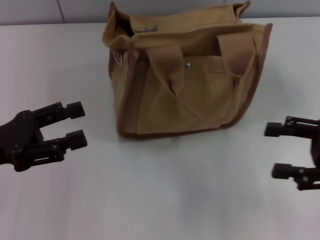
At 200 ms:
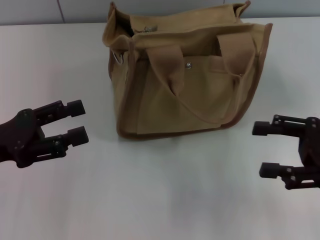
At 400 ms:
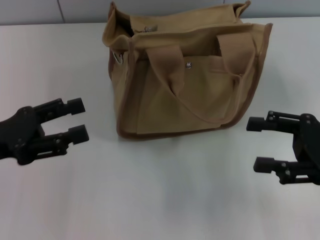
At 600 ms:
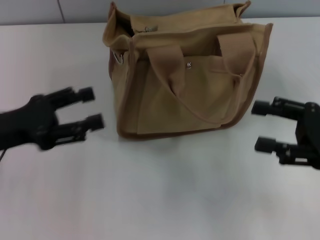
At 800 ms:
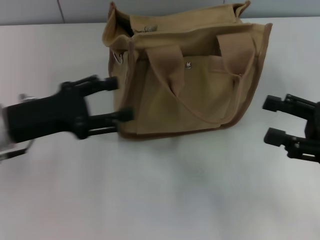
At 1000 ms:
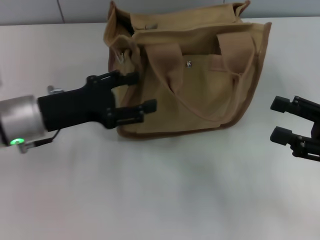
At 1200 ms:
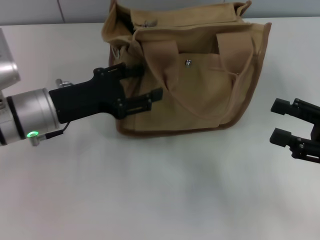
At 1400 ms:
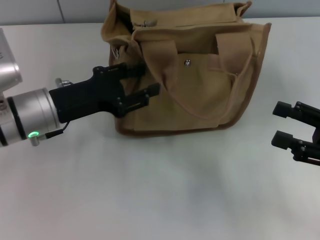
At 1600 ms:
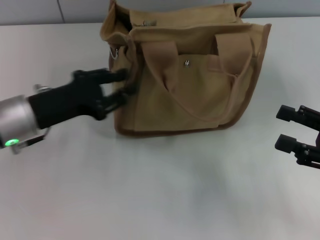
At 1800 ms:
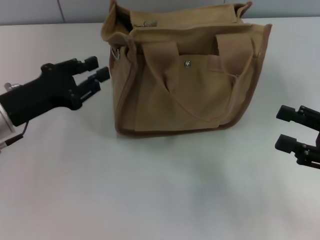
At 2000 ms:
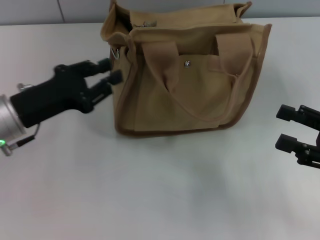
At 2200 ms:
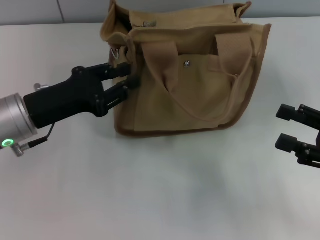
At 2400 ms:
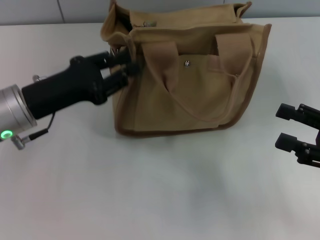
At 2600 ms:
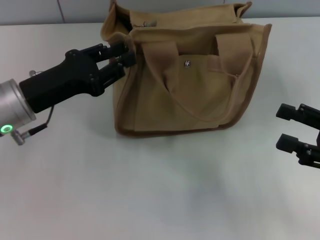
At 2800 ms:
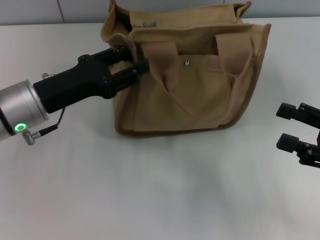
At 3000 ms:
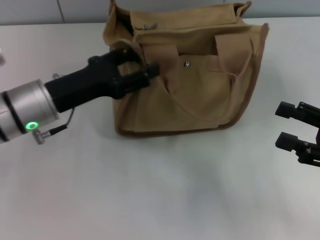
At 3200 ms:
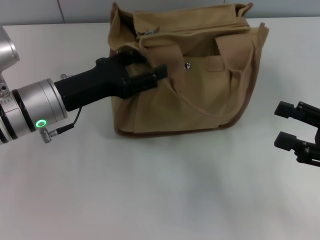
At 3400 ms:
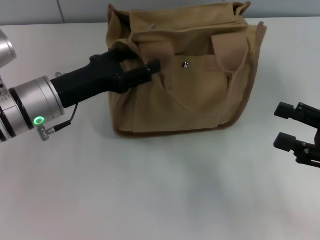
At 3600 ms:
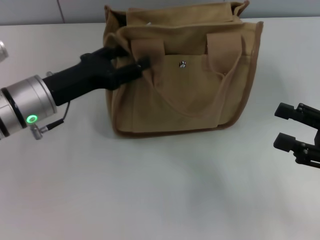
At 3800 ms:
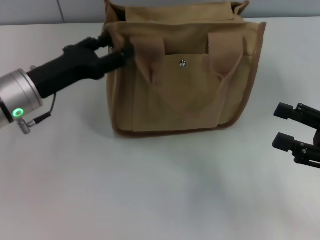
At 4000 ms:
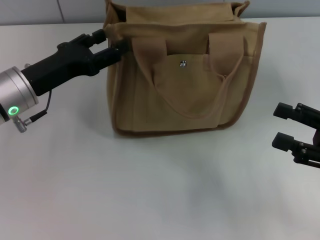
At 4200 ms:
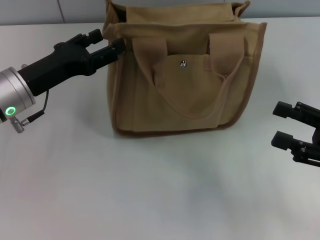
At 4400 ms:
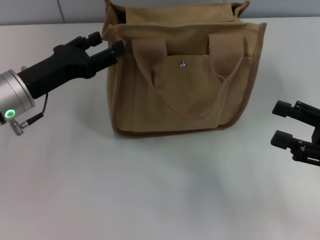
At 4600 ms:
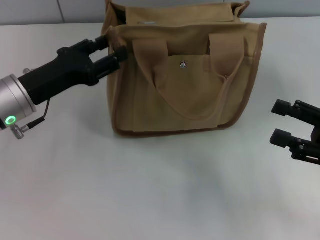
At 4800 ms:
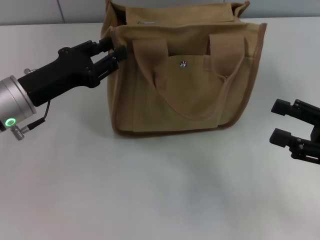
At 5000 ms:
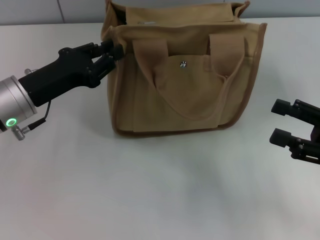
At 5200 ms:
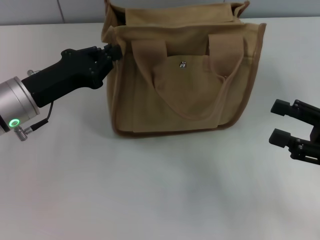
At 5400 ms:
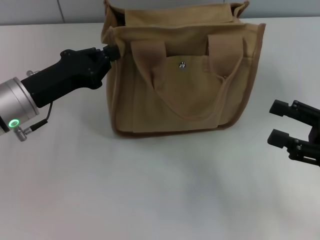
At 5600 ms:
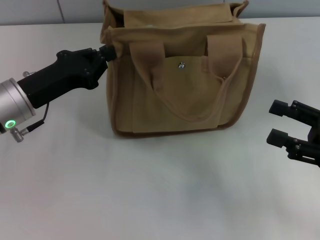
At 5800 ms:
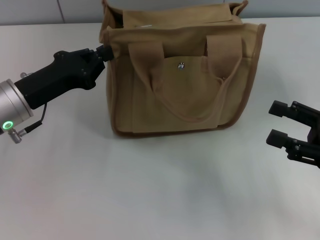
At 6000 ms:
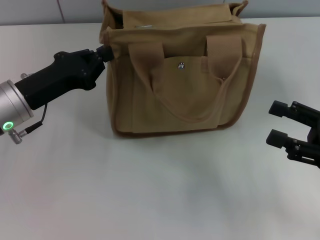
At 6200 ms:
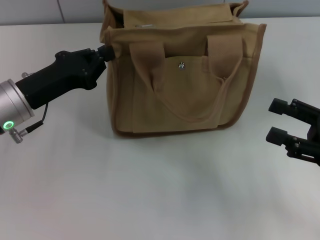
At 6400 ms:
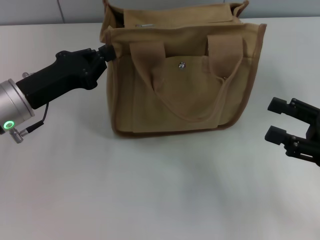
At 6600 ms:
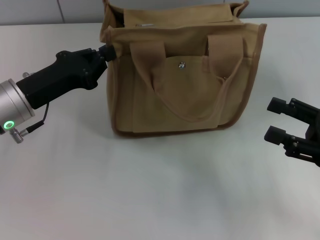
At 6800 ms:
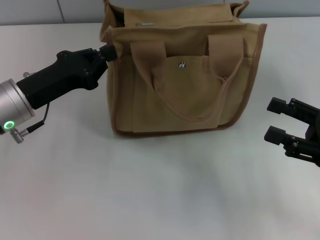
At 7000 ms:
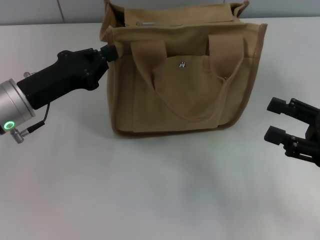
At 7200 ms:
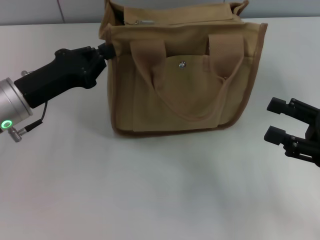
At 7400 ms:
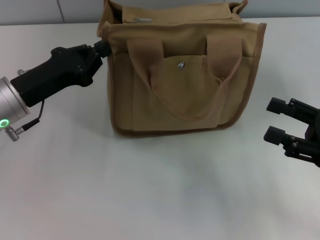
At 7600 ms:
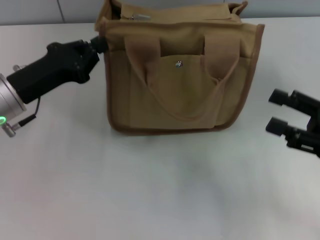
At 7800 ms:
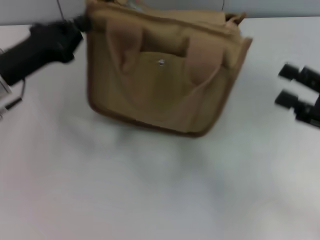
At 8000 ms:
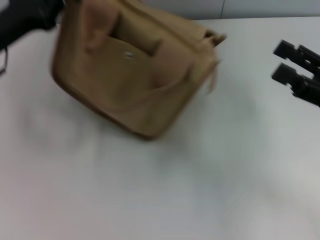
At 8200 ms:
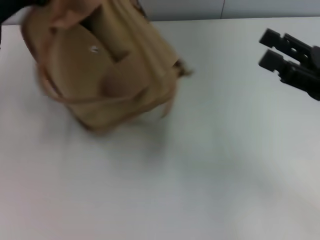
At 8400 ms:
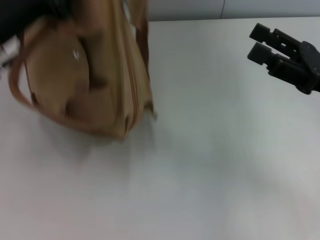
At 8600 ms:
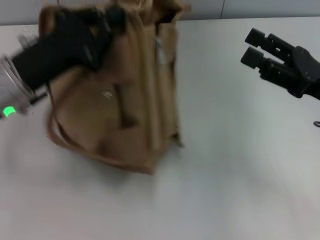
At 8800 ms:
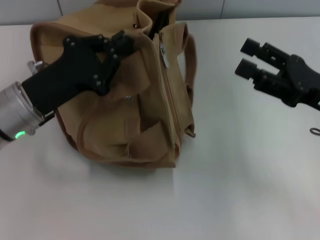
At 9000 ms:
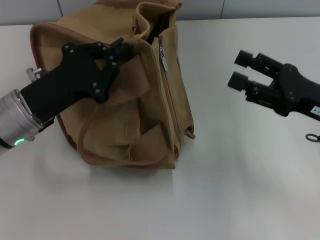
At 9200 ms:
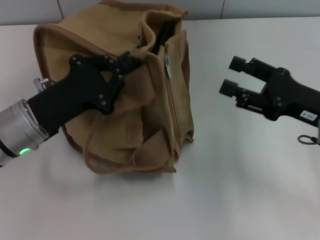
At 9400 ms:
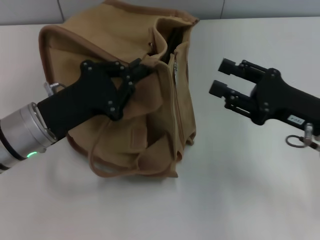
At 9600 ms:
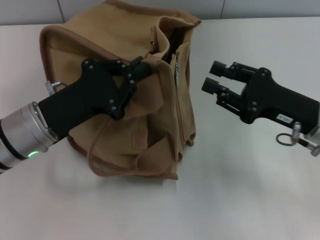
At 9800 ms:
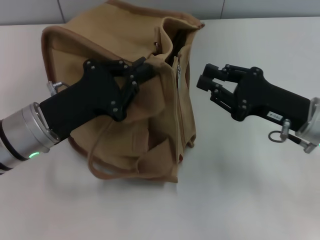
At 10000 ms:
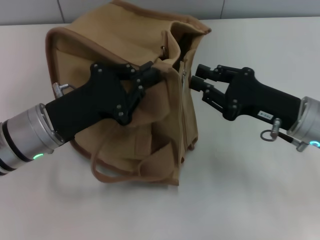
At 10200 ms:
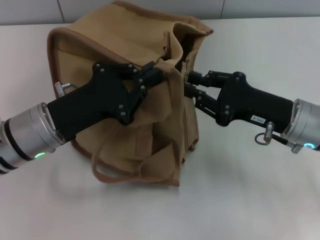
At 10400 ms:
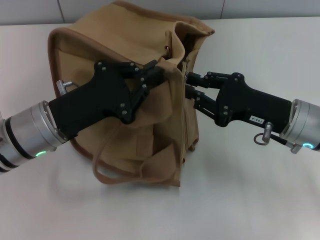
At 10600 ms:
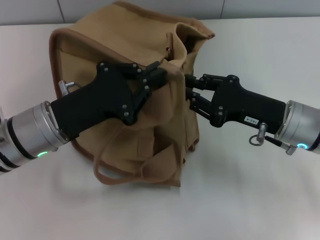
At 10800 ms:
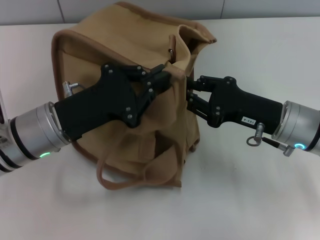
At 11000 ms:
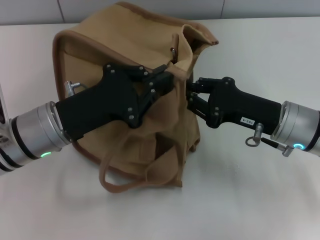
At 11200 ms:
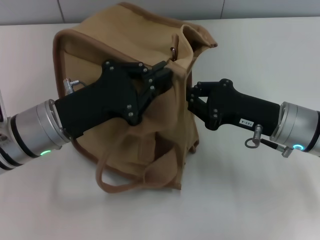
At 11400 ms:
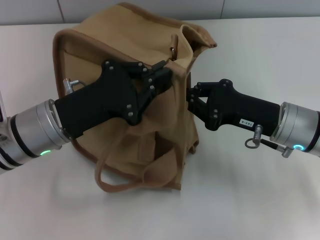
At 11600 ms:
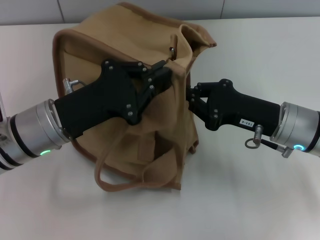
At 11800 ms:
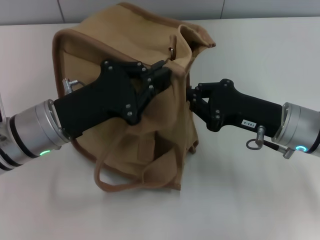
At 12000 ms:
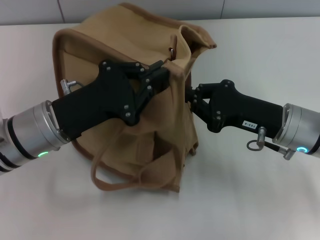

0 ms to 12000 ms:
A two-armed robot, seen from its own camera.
0 ms to 1600 ms: The left gripper goes approximately 10 cm to the right and forward.
1600 ms to 4400 ms: The grippers move only a little.
4400 ms to 6000 ms: The left gripper closes its fingers.
6000 ms to 7600 ms: Both grippers stay about where they are.
7600 ms to 9000 ms: The right gripper shifts by approximately 5 cm, while the left gripper travels upward and back again, roughly 5 cm each way.
9000 ms to 10400 ms: The right gripper is displaced to the left by approximately 5 cm, and closes up.
10400 ms to 12000 ms: The right gripper closes.

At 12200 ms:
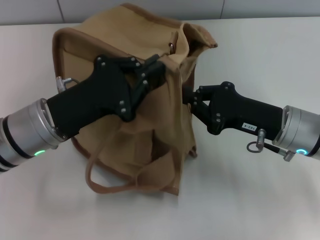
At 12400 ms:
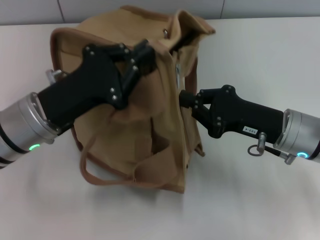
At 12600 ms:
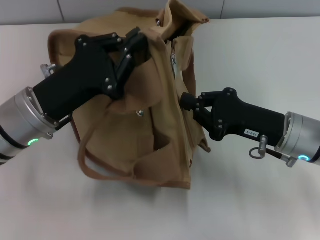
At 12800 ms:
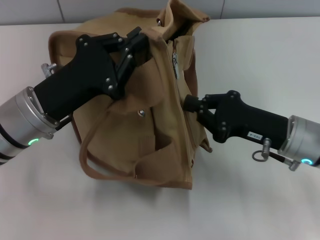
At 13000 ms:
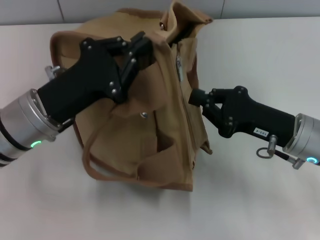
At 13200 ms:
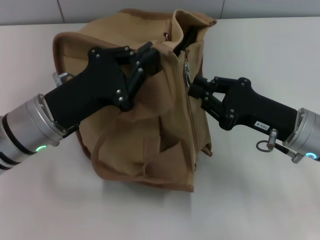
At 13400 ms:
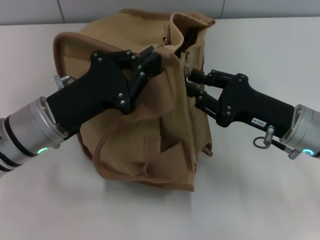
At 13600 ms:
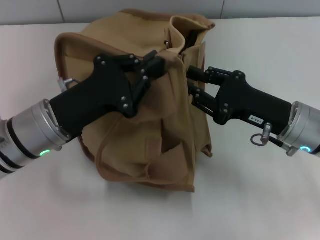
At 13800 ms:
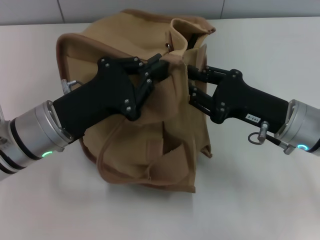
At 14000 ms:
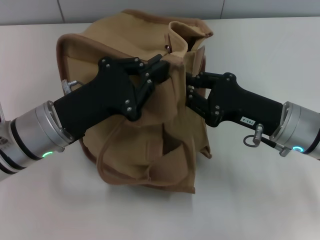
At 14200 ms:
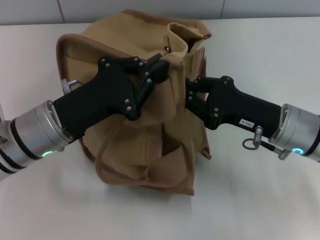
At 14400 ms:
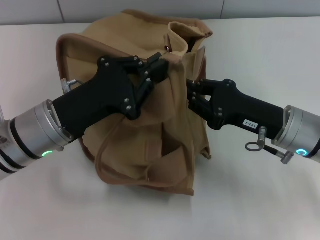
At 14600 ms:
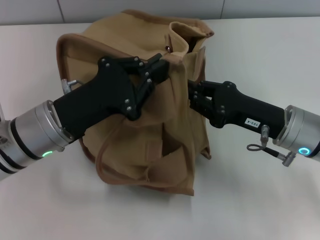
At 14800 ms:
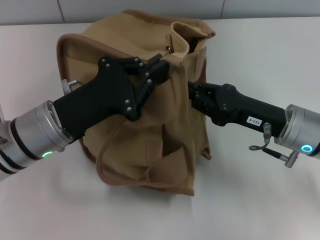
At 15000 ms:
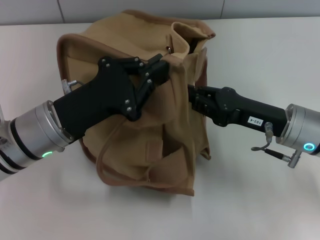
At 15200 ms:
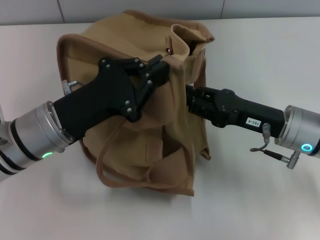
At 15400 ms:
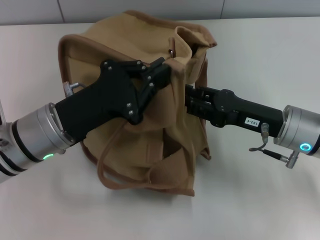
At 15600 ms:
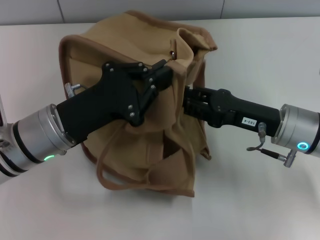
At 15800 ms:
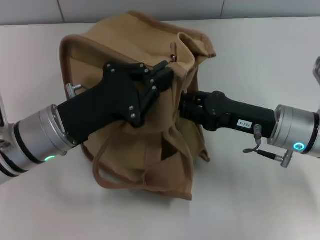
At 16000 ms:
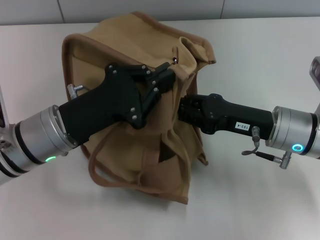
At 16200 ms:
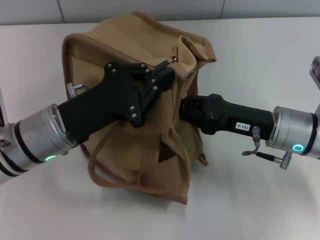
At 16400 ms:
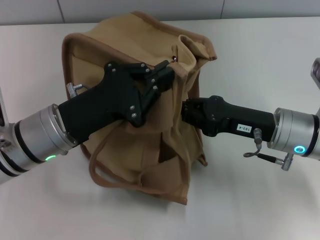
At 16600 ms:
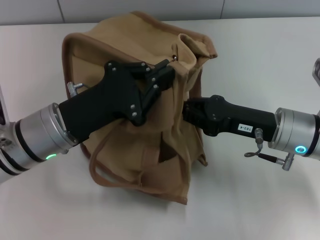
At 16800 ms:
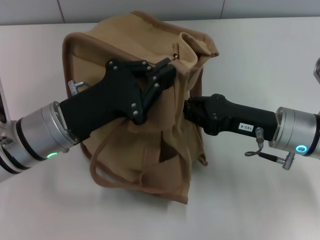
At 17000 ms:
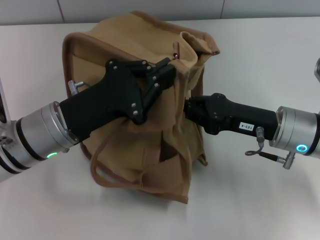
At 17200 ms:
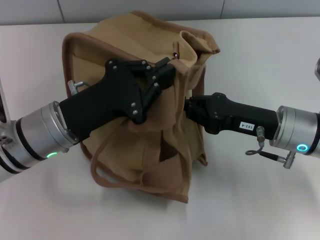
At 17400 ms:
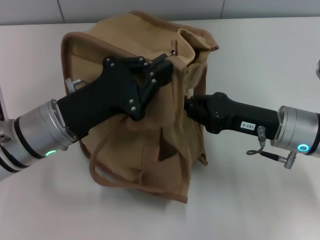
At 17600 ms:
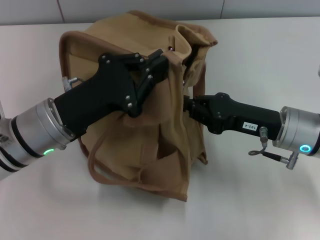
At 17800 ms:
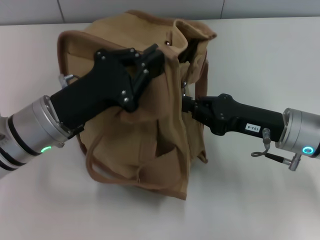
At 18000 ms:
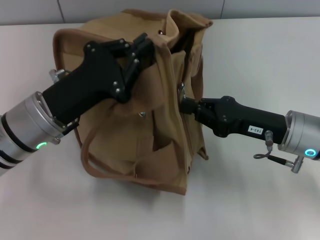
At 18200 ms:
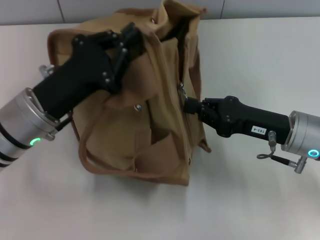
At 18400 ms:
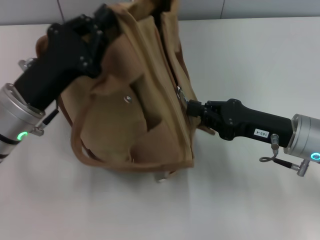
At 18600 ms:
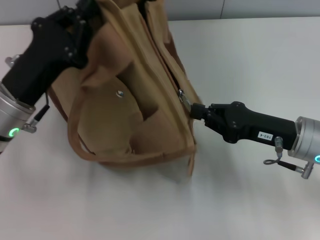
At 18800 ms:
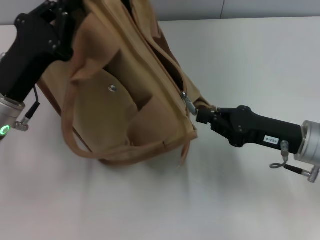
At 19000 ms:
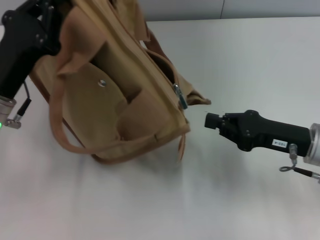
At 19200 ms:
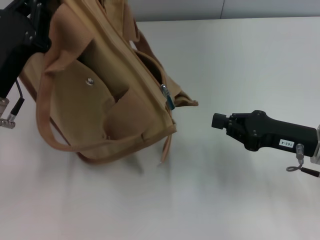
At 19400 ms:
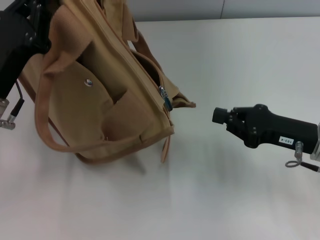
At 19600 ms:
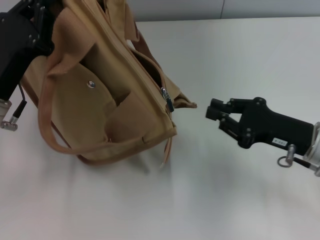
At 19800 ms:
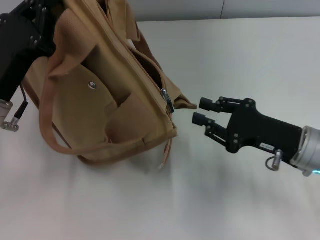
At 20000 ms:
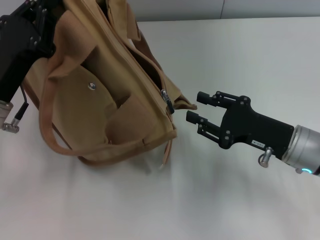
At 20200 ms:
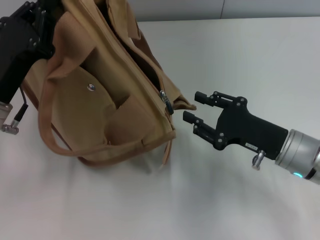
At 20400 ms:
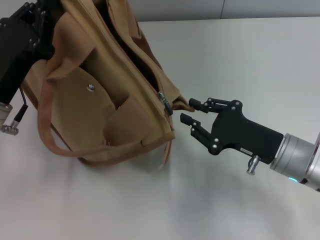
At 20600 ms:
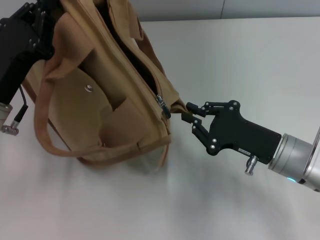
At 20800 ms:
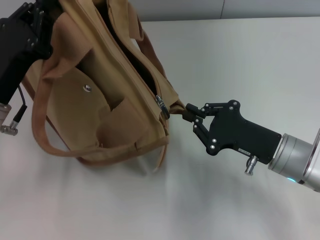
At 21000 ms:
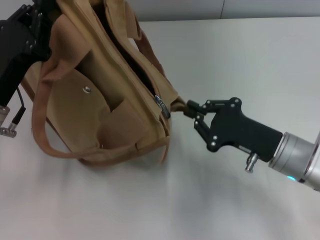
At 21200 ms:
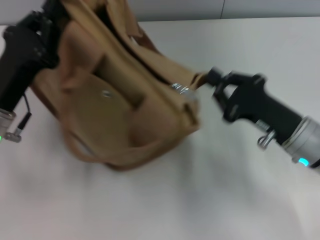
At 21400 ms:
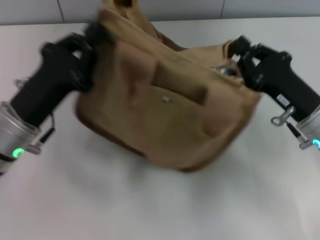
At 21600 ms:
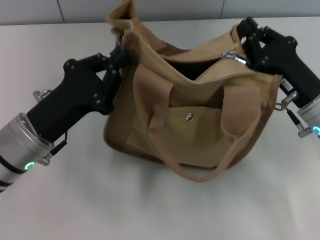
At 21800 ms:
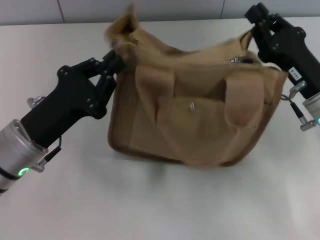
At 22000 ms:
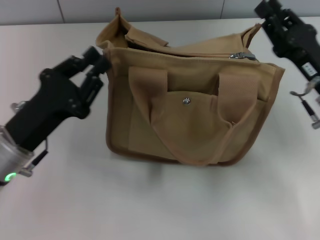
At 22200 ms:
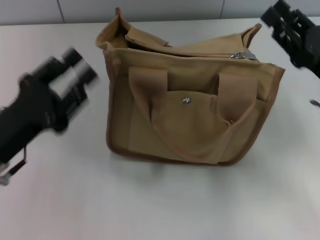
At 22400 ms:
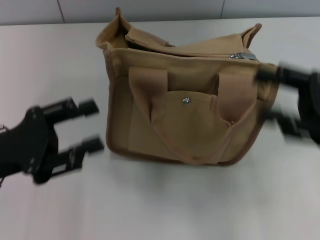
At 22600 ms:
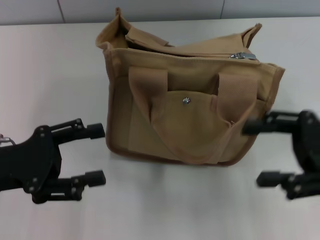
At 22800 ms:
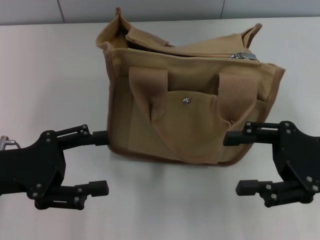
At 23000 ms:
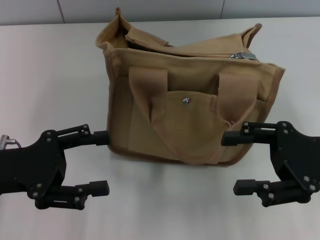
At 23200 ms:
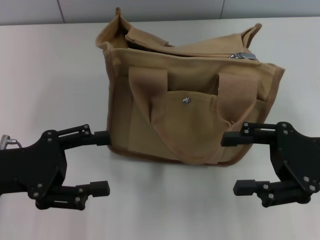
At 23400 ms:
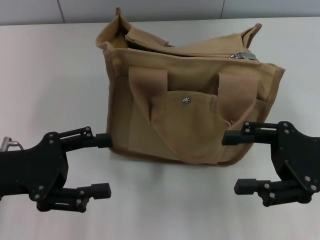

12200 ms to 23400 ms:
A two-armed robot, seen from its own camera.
Step, 12200 ms to 20200 ms: Pull open the zipper with your right hand.
Step, 20400 ms to 22000 ms: Grab the bag with your left hand.
12200 ms to 13800 ms: The right gripper opens.
15400 ms to 17000 ms: The grippers make only small movements.
18600 ms to 20200 ms: The right gripper opens.
20200 ms to 21800 ms: The right gripper shifts by about 5 cm, and closes.
21800 ms to 23400 ms: The left gripper is displaced to the left by about 5 cm, and opens up, while the right gripper goes some 5 cm backward, and opens up.
